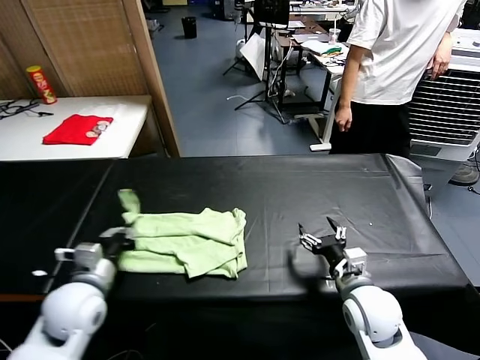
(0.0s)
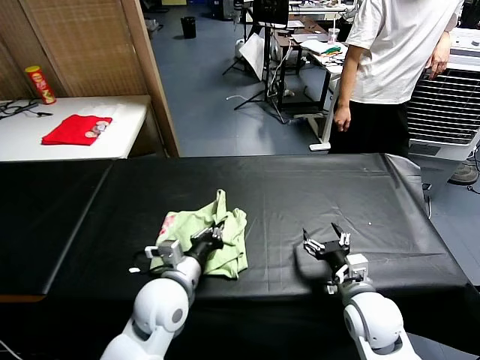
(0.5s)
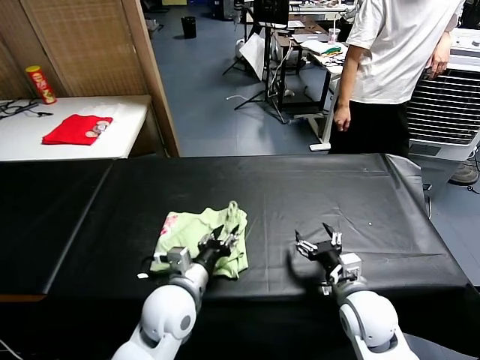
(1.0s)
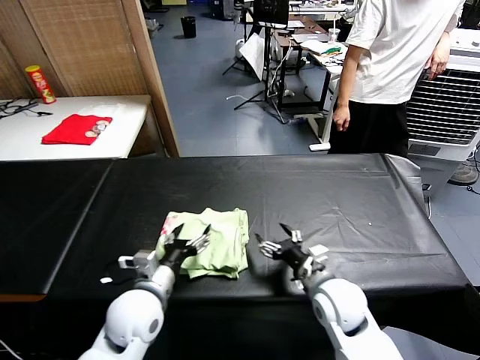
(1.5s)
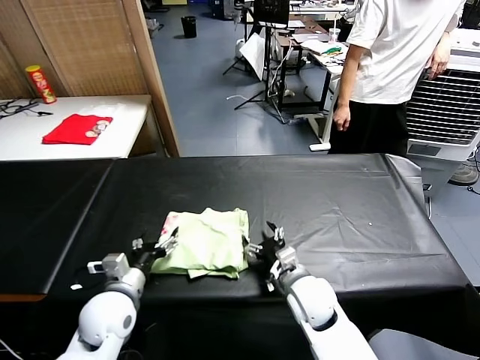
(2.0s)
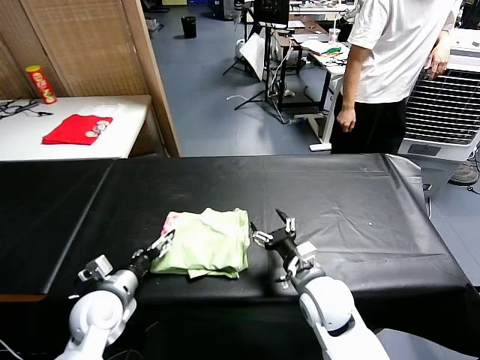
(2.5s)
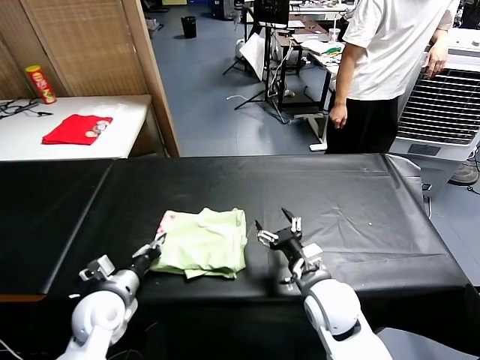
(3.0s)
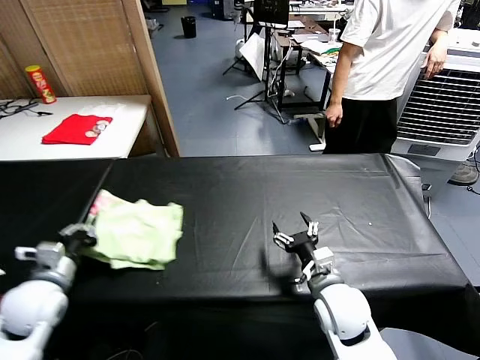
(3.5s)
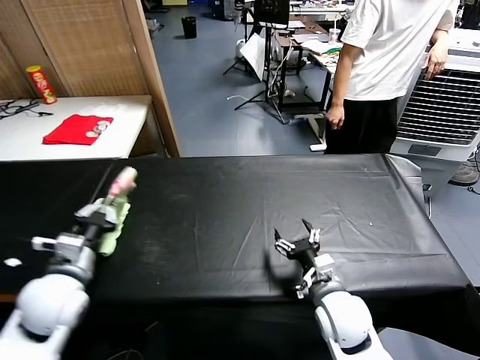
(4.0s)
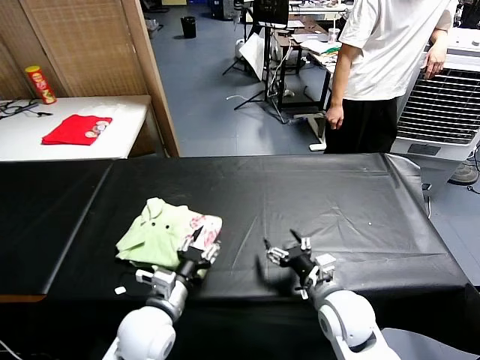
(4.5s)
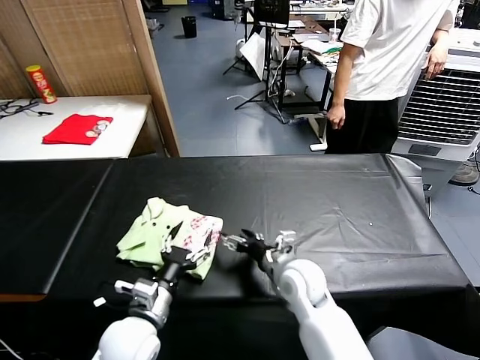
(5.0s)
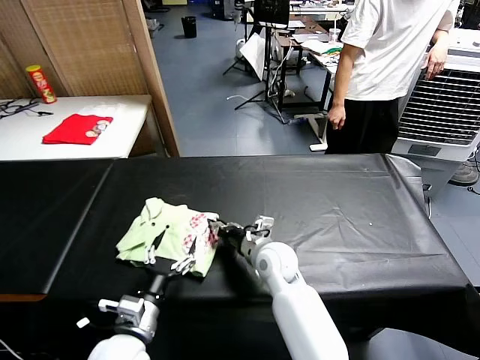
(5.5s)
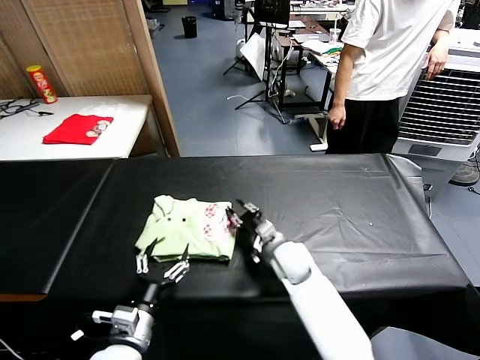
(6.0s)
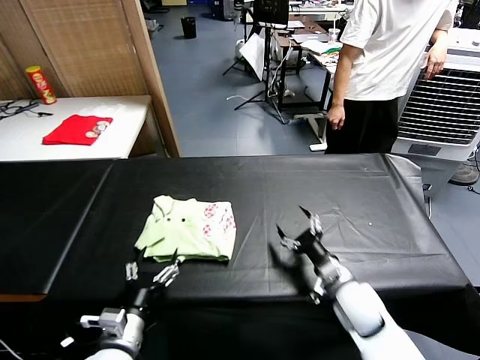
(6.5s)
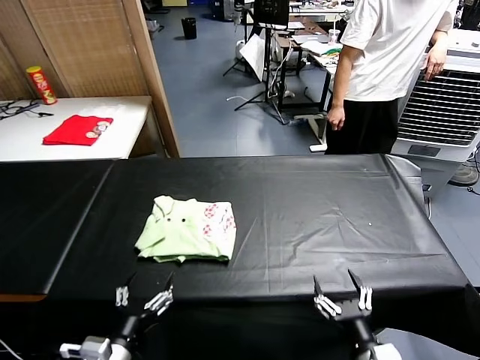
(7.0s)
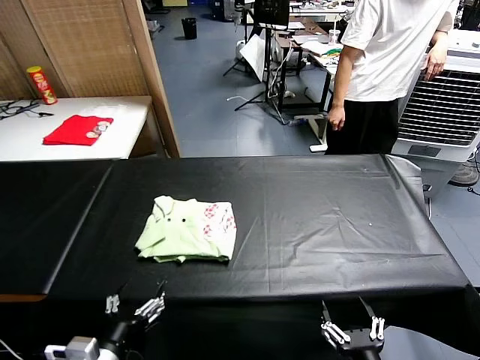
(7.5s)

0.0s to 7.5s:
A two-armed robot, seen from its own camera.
Task of the whole recording: fold and organize the clothes.
Step, 0.0s to 1.0s: use the left gripper to drag the left edge of the fabric to the left and folds it over the right edge.
Step, 1.5s to 4.5s: Flip the folded clothes over with left gripper.
Step, 5.0s to 6.0s: Drag the clothes to the center of the table.
0.0s to 2.0s: The right gripper is displaced to the left by approximately 10 cm. The left gripper goes to the right and returns, about 15 cm each way, and opens.
2.0s to 4.0s: The left gripper heads upward and to the left, covering about 10 cm, and closes its fingers, while the right gripper ends up roughly 5 cm from where it was.
4.0s to 5.5s: The left gripper heads to the right, downward and backward, covering approximately 15 cm, and opens, while the right gripper is displaced forward and to the left by some 15 cm, and closes.
5.5s to 7.5s: The right gripper shifts some 35 cm backward and to the right, and opens its fingers; the left gripper shifts some 10 cm backward.
